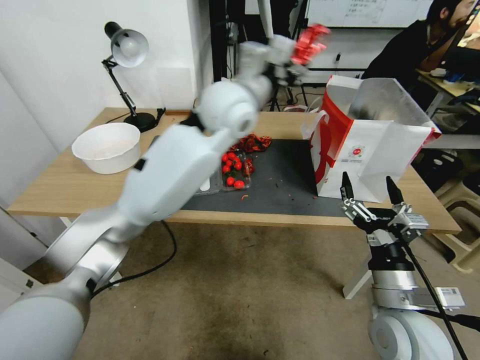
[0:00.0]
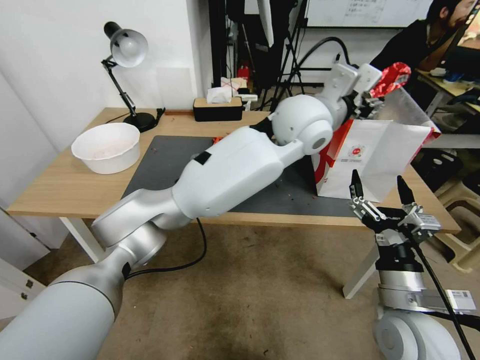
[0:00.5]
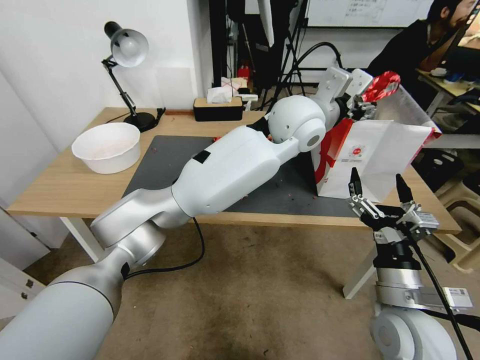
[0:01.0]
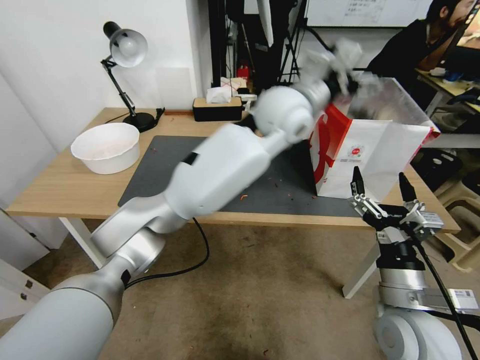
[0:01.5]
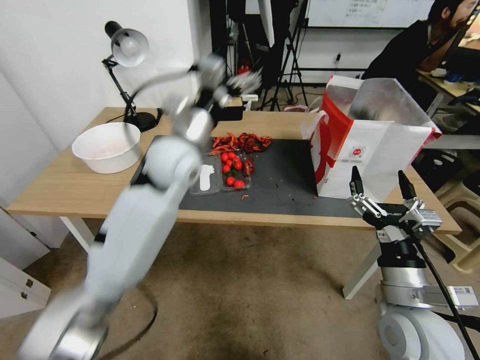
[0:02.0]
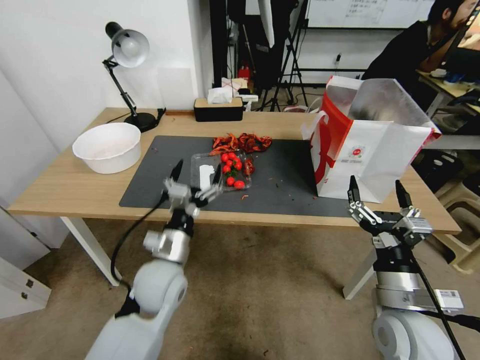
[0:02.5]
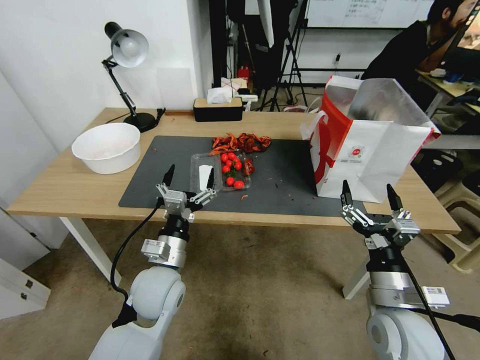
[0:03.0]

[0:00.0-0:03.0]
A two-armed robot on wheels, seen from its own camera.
0:00.0 to 0:01.5: The left gripper travels to the right by about 10 cm, and opens.
0:01.5 to 0:03.0: The left gripper travels downward, to the left and backward by roughly 40 cm.

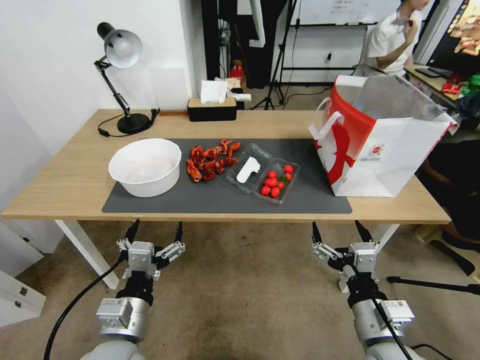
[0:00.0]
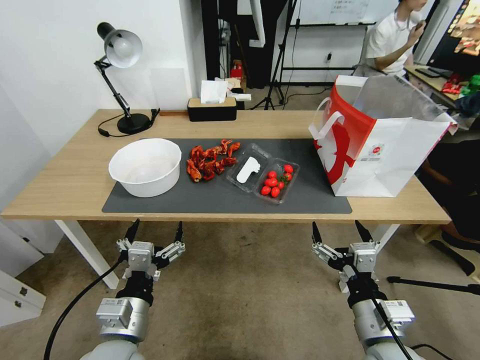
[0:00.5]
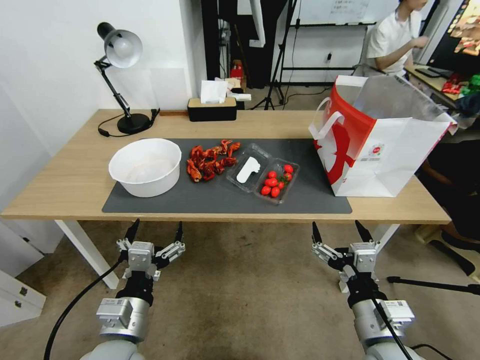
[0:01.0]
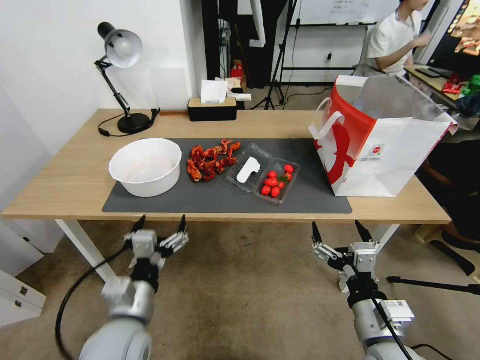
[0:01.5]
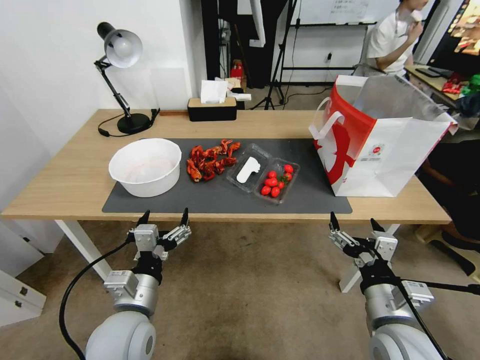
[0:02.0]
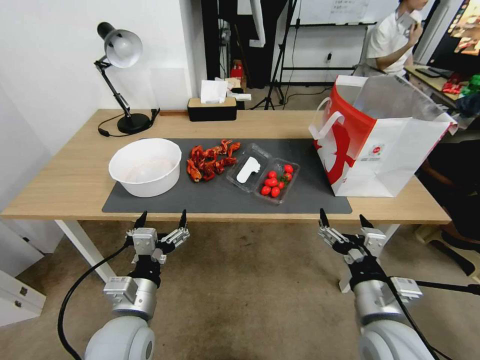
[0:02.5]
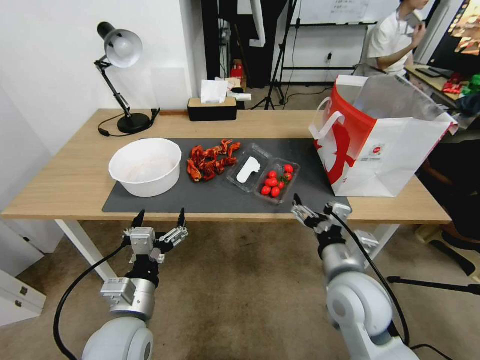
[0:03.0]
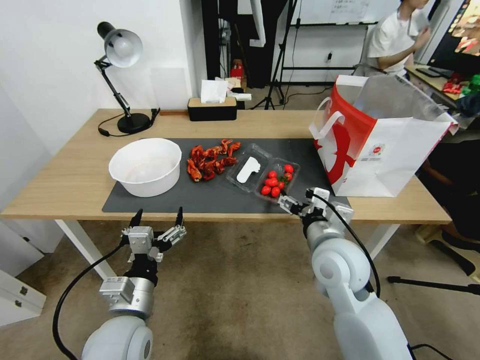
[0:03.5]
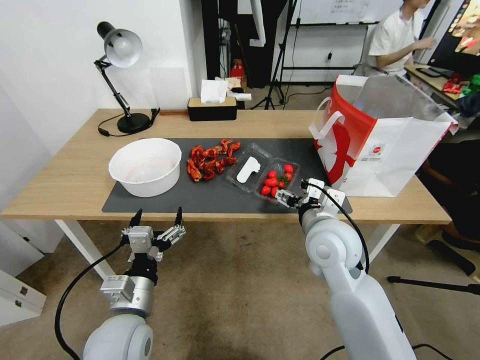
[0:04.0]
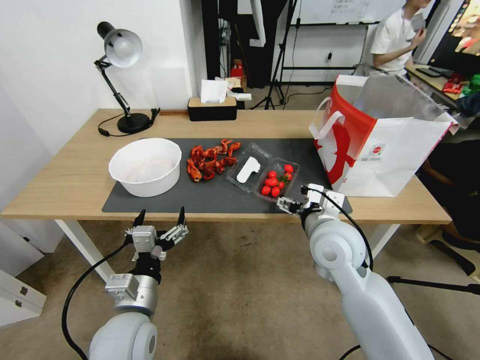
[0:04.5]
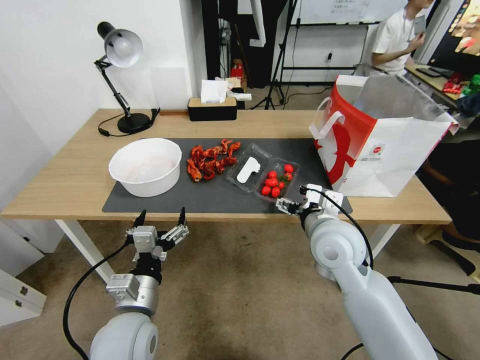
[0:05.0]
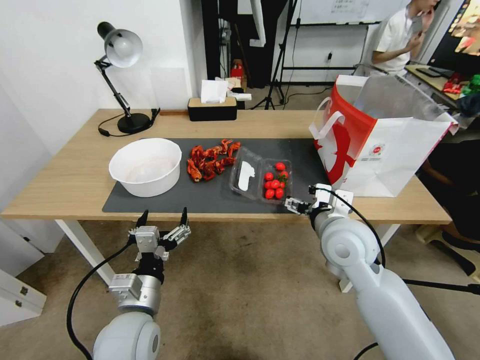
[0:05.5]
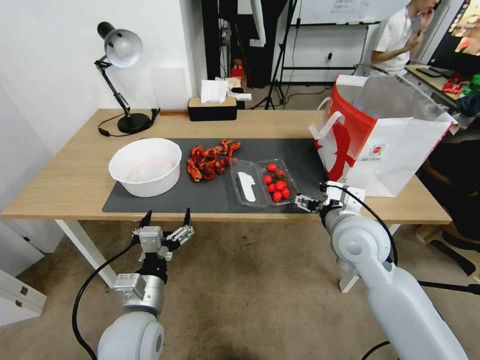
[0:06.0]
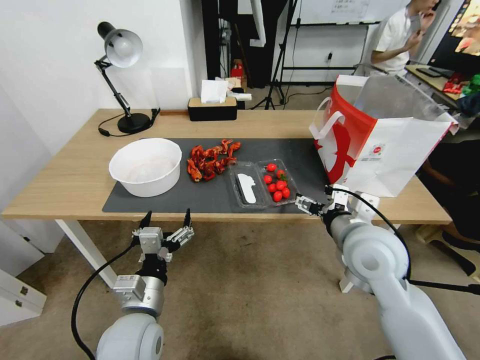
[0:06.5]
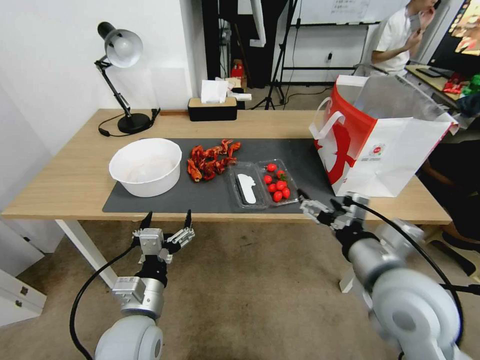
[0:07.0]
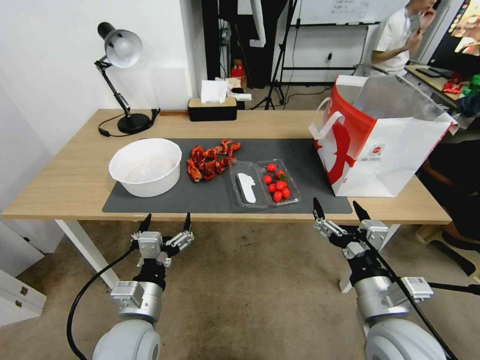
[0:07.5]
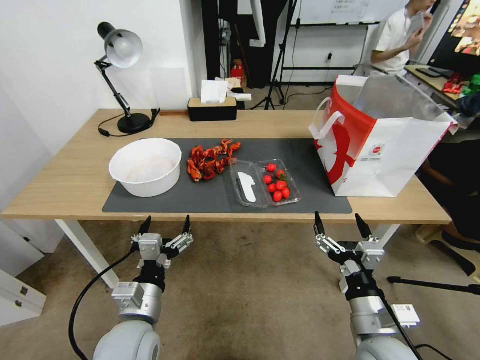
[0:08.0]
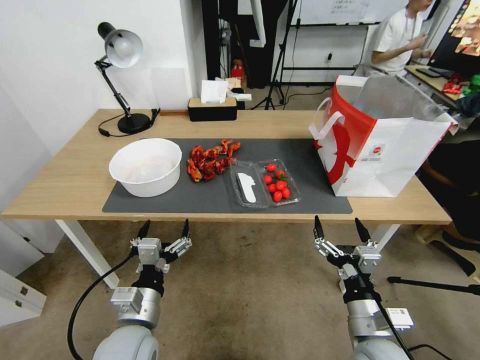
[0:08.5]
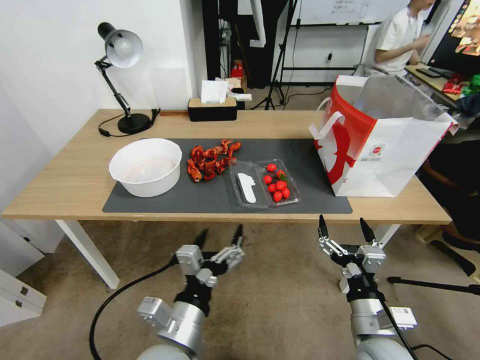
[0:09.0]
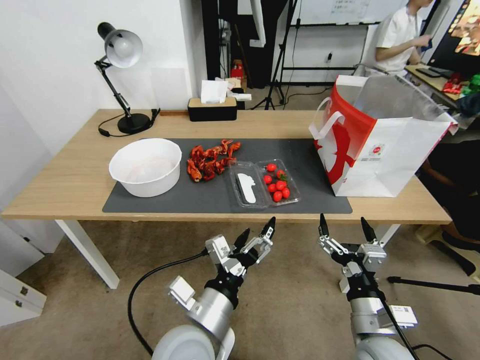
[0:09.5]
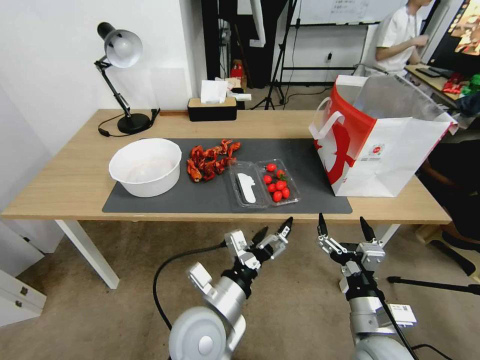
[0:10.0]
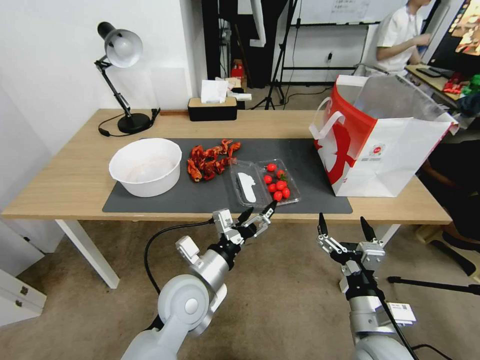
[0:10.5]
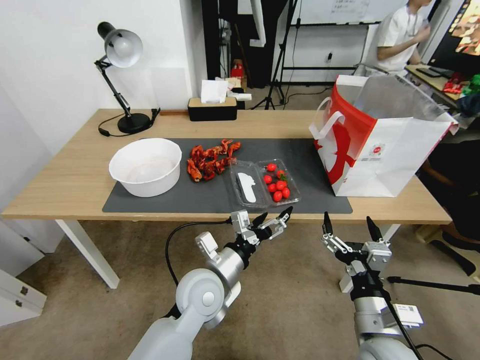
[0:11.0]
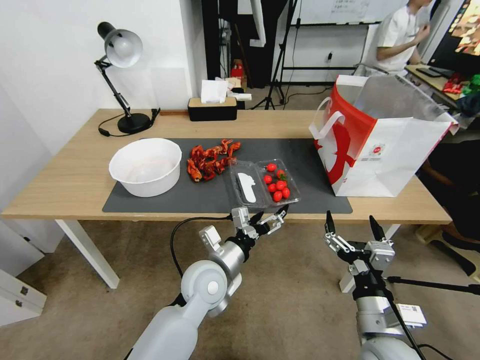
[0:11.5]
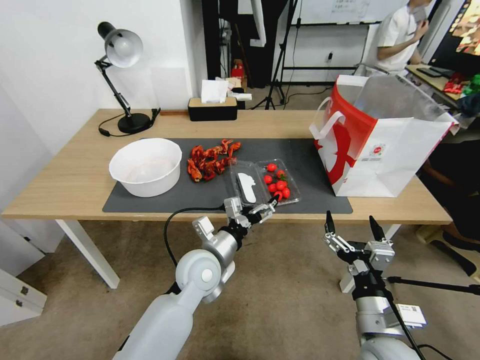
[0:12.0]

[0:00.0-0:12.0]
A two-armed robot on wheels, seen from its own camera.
0:02.0 to 0:04.0: The right gripper travels forward, to the left and upward by about 20 cm.
0:04.0 to 0:06.0: The right gripper travels to the right by some 5 cm.
0:06.0 to 0:08.0: The right gripper goes about 20 cm backward and downward.
0:08.0 to 0:10.0: The left gripper goes approximately 10 cm to the right.
0:10.0 to 0:12.0: The left gripper moves forward, approximately 10 cm.

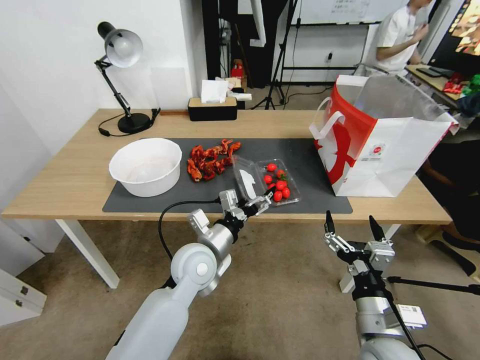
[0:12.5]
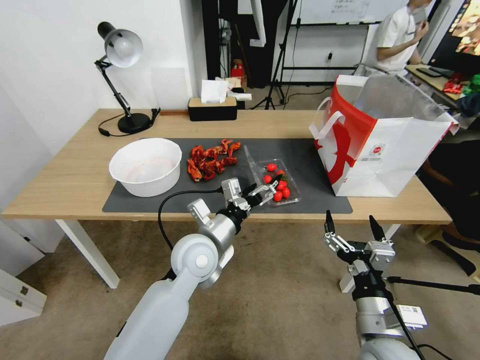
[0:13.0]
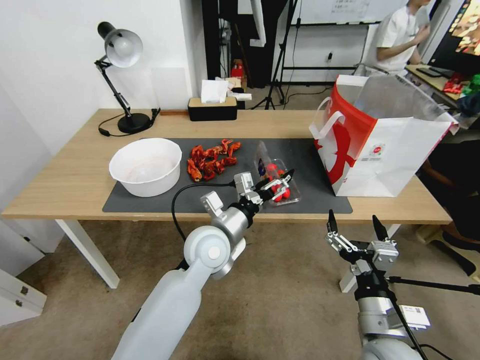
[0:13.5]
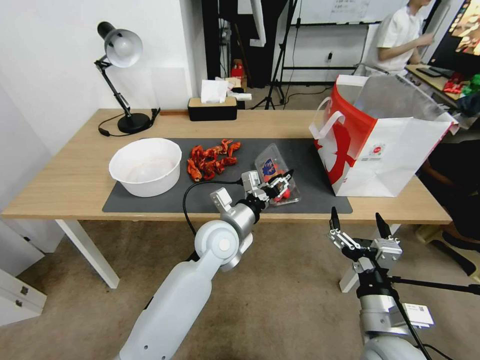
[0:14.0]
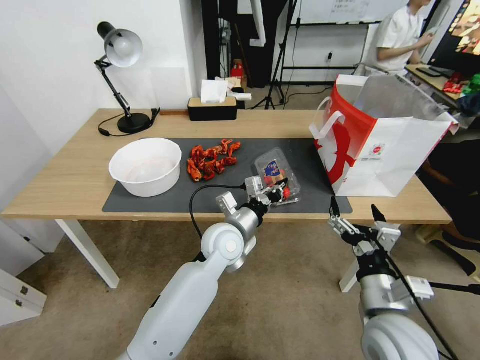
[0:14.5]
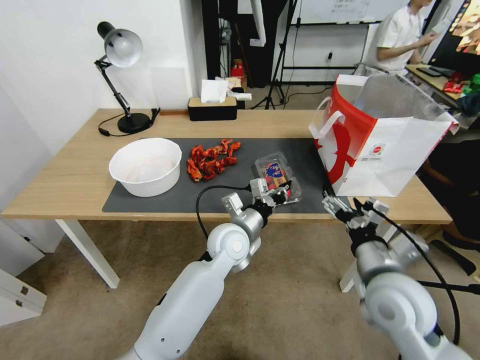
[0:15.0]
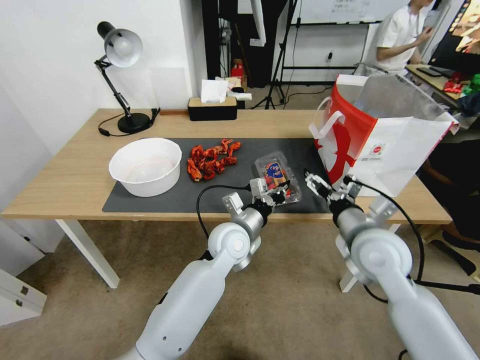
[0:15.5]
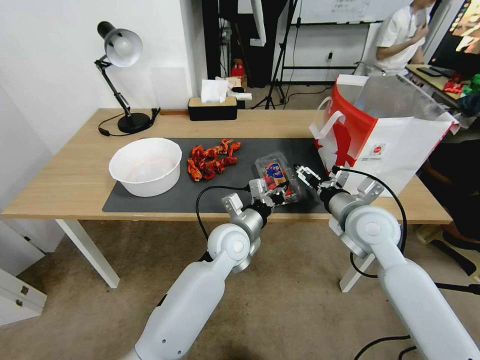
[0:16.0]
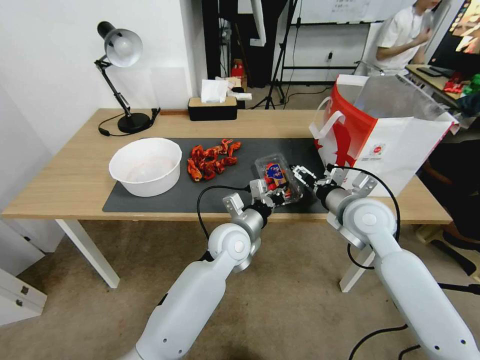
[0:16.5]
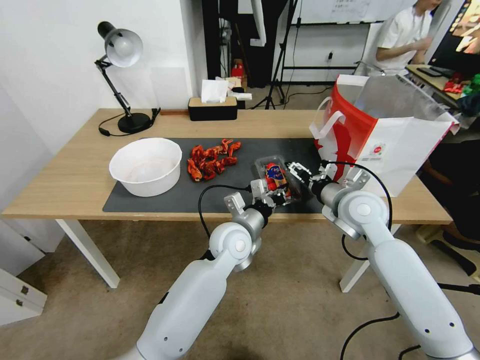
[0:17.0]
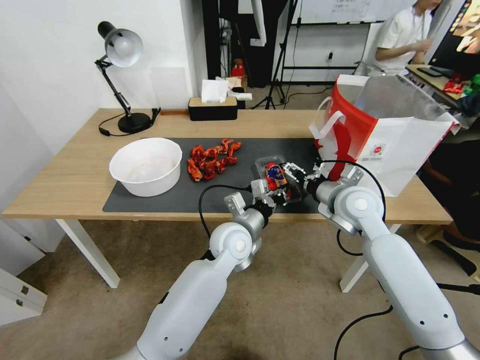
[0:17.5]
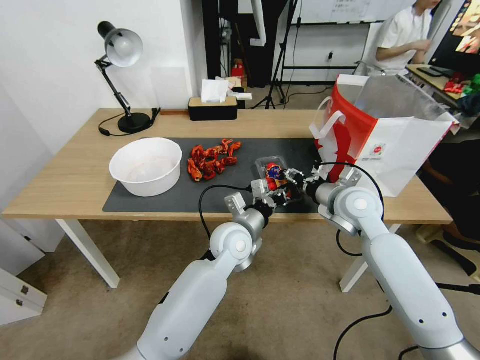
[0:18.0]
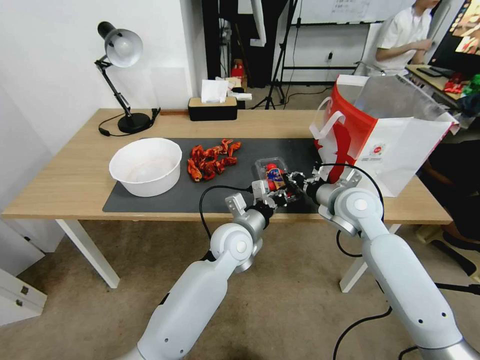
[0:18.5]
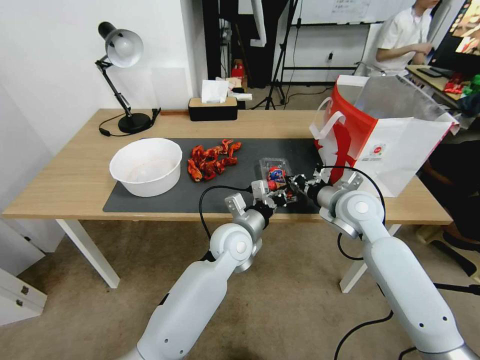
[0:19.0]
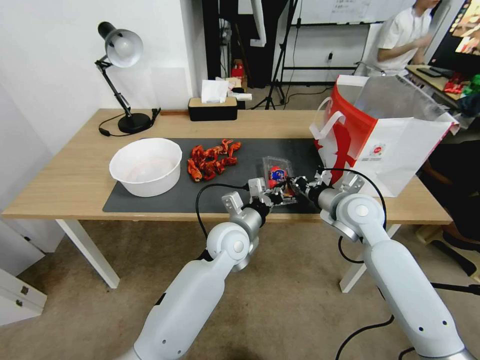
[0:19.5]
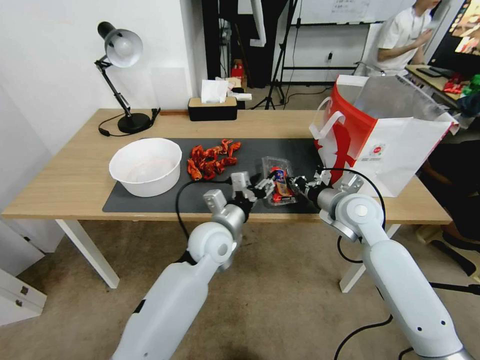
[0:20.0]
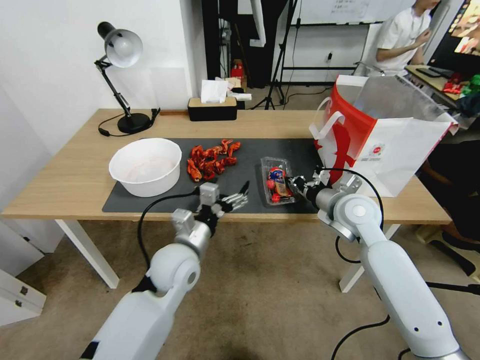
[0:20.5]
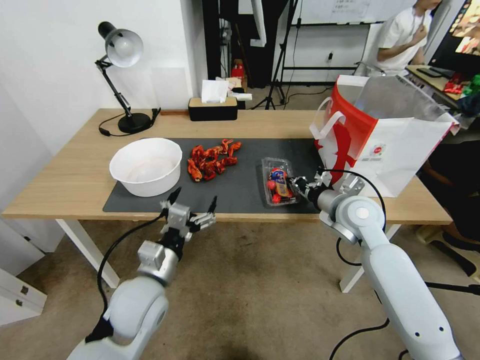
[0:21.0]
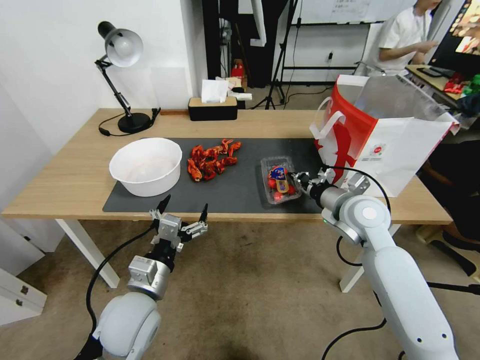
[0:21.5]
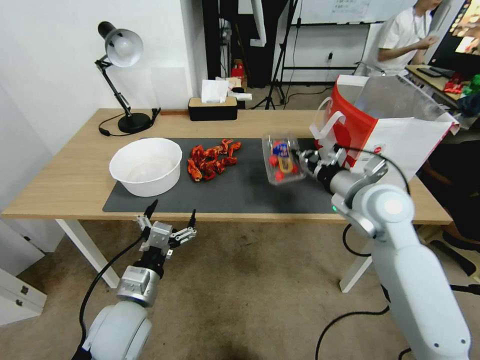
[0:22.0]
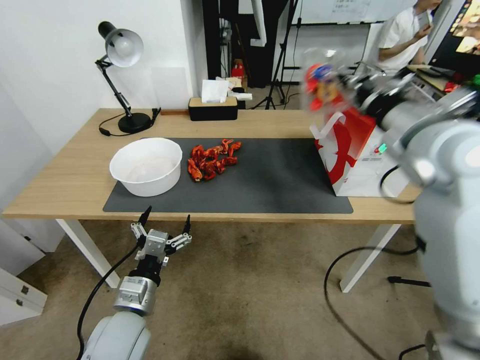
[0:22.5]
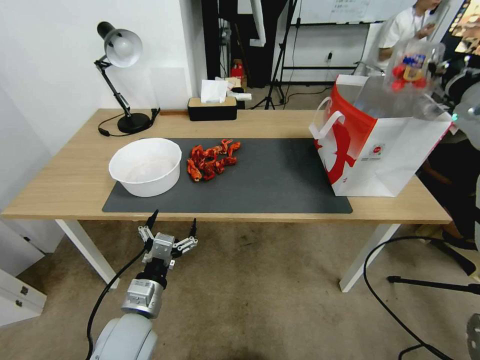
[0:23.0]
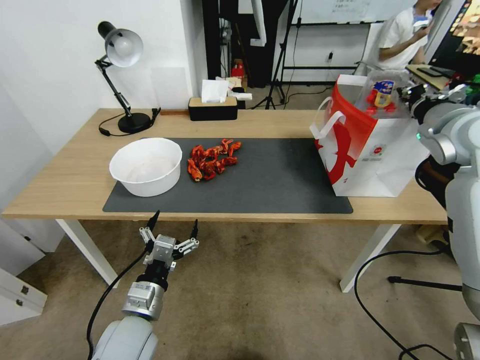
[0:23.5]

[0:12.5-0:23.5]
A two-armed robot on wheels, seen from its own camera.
0:12.5 to 0:14.5: The left gripper goes roughly 5 cm to the right, and closes its fingers.
0:14.5 to 0:16.0: The right gripper goes roughly 20 cm forward.
0:16.0 to 0:18.0: The right gripper shifts some 5 cm forward, and closes.
0:18.0 to 0:20.0: The left gripper opens. Meanwhile the right gripper closes.
0:20.0 to 0:21.5: The left gripper heads backward and to the left, covering about 20 cm, and opens.
0:21.5 to 0:23.5: The right gripper is displaced upward and to the right by roughly 25 cm.
